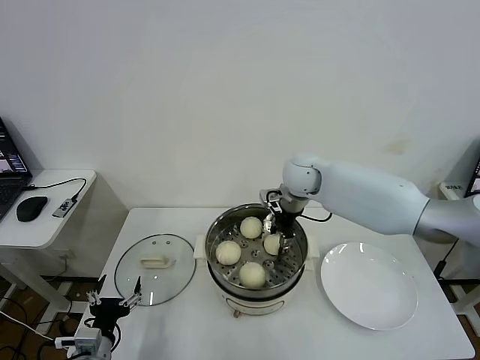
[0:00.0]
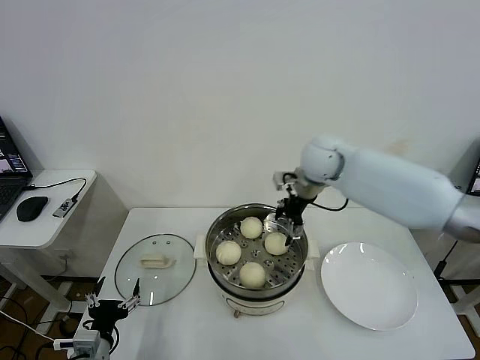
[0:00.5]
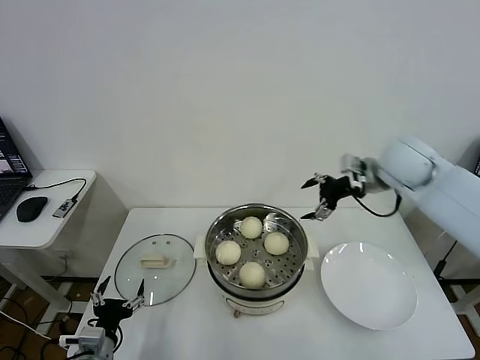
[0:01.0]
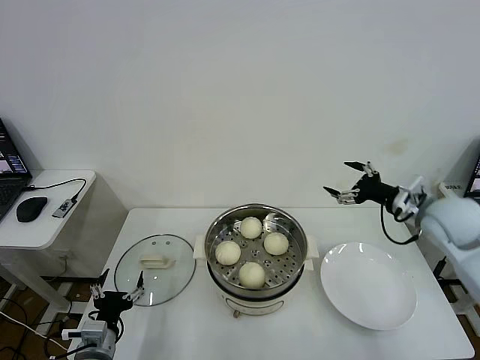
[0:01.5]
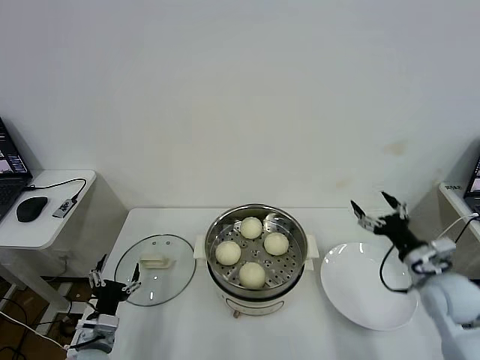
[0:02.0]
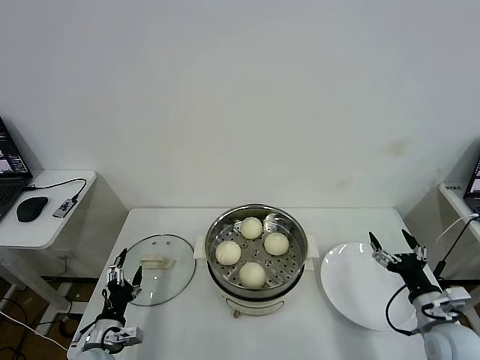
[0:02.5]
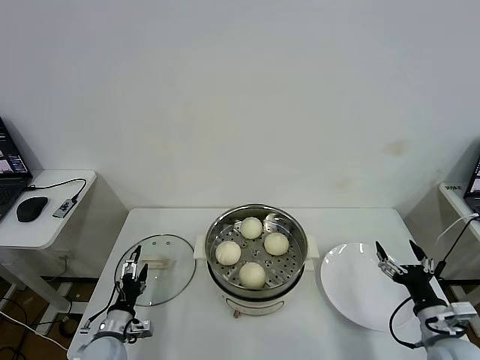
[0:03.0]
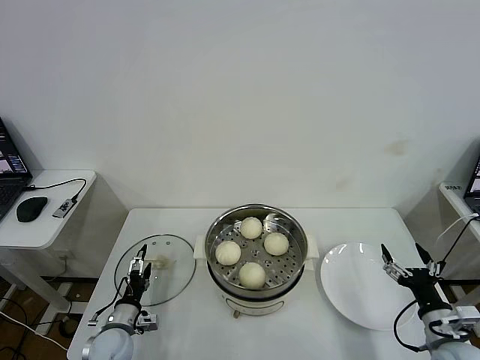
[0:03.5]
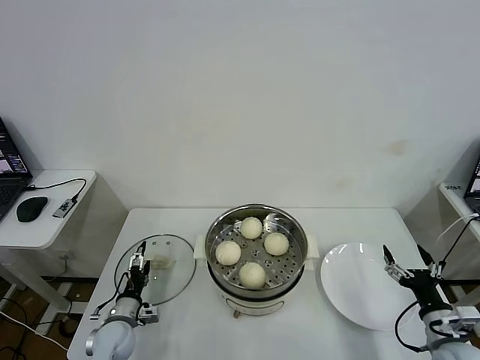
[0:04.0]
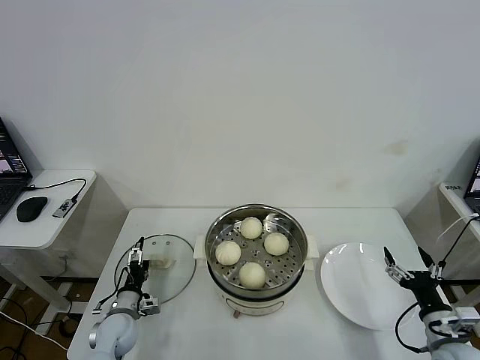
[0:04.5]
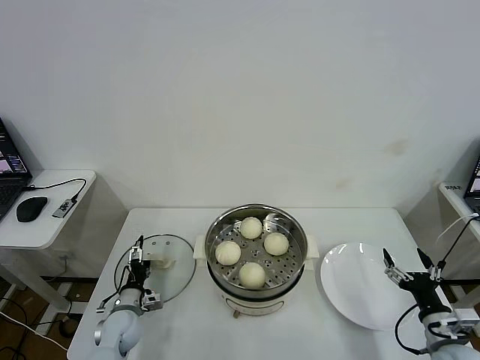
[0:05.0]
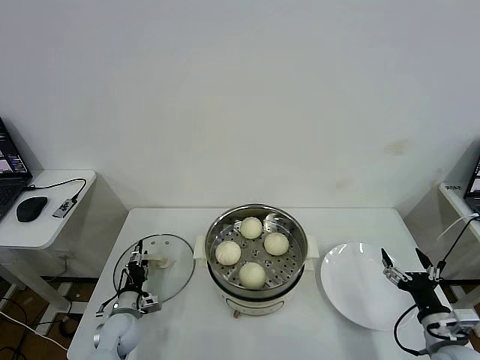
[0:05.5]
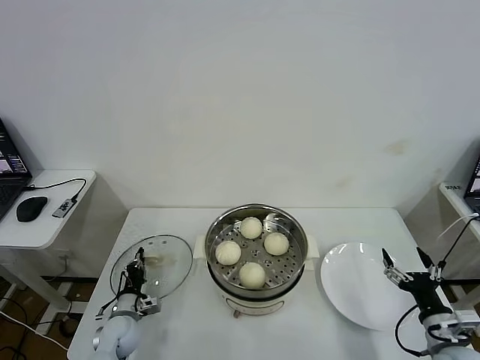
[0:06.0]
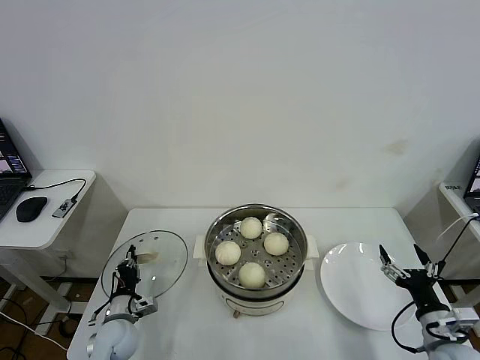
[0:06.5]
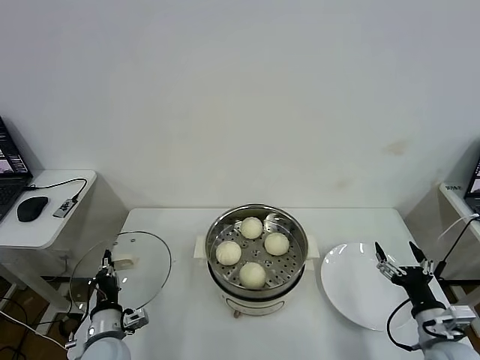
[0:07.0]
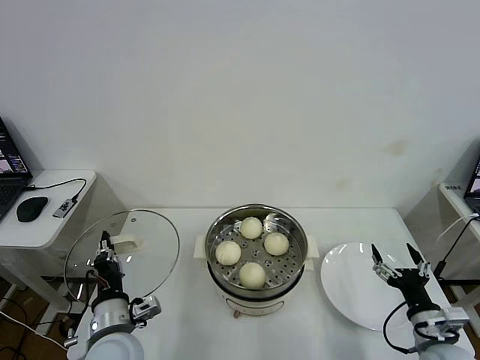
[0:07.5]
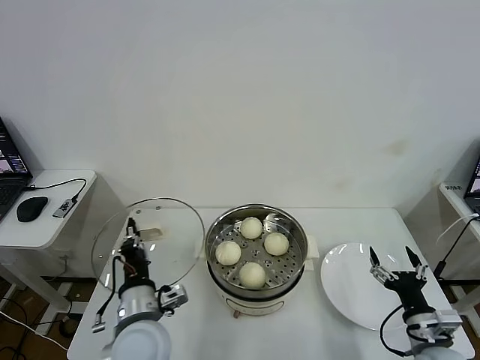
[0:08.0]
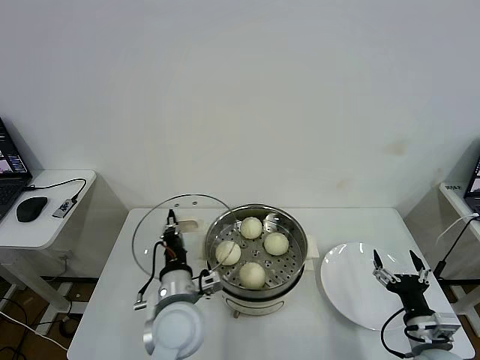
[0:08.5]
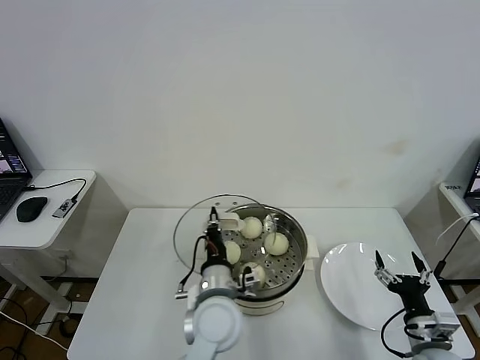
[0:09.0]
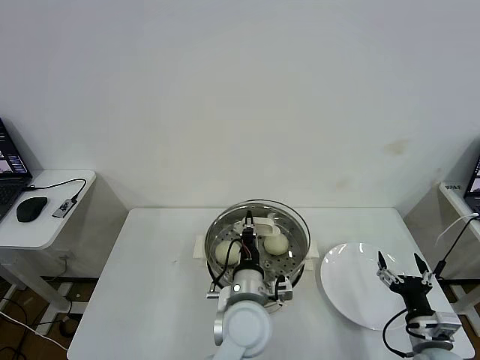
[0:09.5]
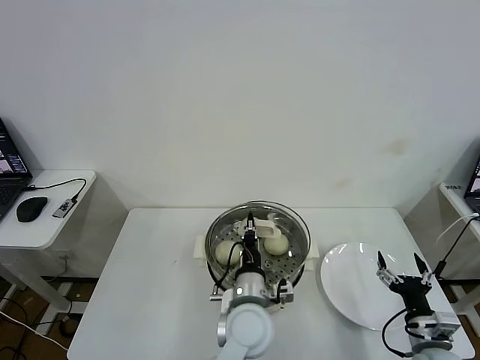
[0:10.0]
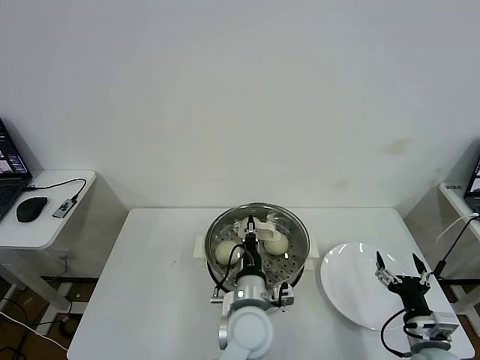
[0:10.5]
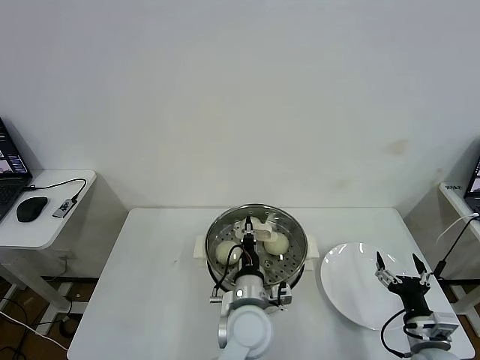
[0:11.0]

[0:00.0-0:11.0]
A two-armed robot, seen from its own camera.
Task of the whole recording: take steamed baozi put them in steamer then cover it.
Step, 0:01.0 to 0:06.0: Grasp the pot lid with left gripper.
0:00.0 to 0:02.0: The right gripper goes roughly 40 cm to the right, backward and downward, and opens its fingers.
0:02.0 to 0:03.5: The left gripper goes about 10 cm downward and forward. The right gripper is displaced backward and downward by approximately 10 cm.
0:03.5 to 0:05.5: The left gripper ends up roughly 5 cm from where it was.
0:05.5 to 0:07.5: The left gripper moves upward, backward and to the right, roughly 20 cm, and closes.
0:07.5 to 0:09.0: The left gripper moves to the right, some 20 cm.
0:09.0 to 0:11.0: The left gripper heads to the right, covering roughly 5 cm.

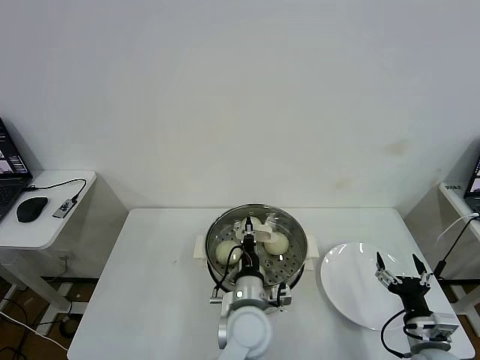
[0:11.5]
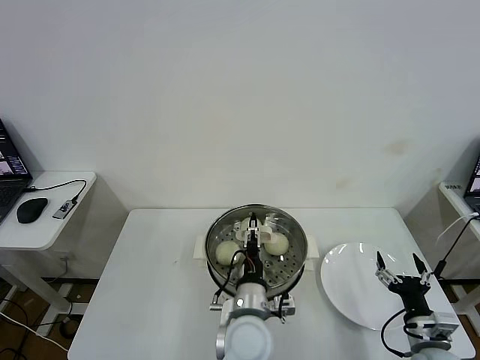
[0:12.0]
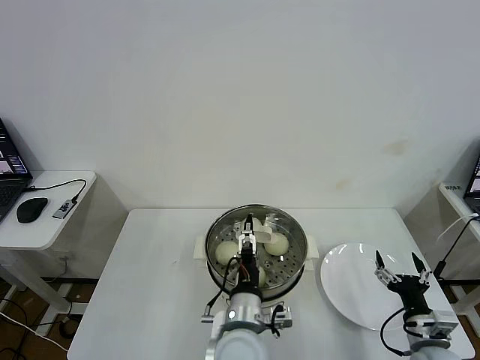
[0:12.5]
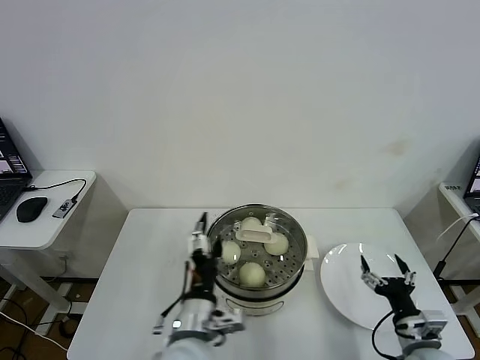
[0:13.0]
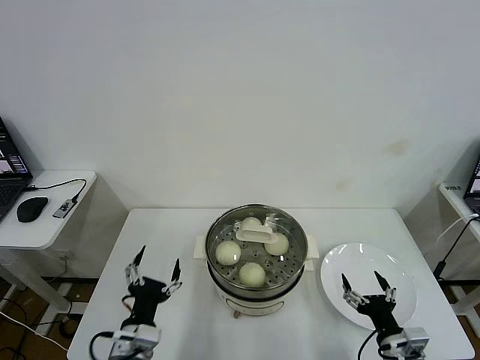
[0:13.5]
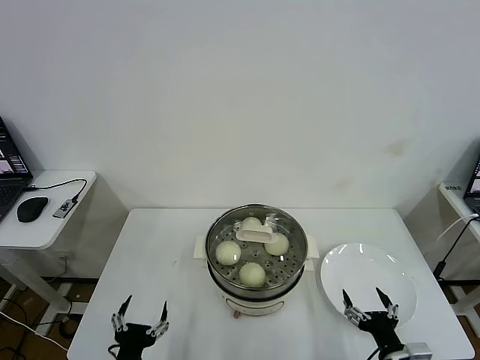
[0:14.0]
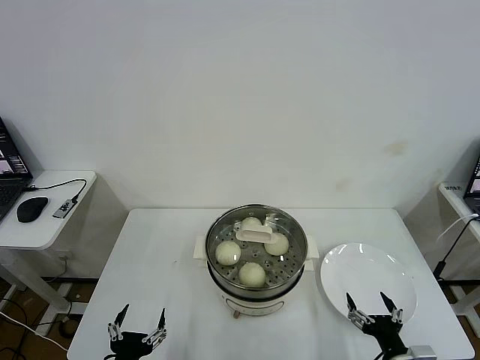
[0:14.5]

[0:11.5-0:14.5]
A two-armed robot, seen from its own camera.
Task of the whole recording: take steamed baozi put them in steamer then cover it.
0:11.5 to 0:13.0: The left gripper goes approximately 15 cm to the left, backward and upward, and opens.
0:13.0 to 0:14.5: The right gripper goes approximately 5 cm backward. The left gripper shifts approximately 20 cm to the left, backward and downward.
